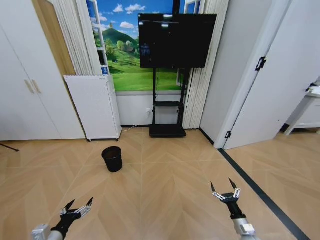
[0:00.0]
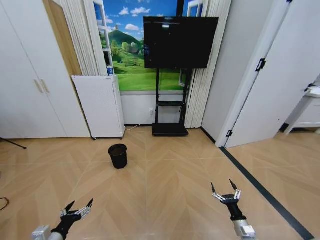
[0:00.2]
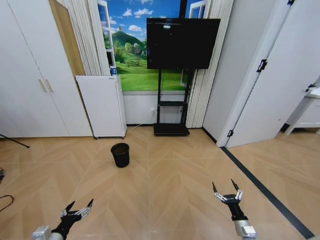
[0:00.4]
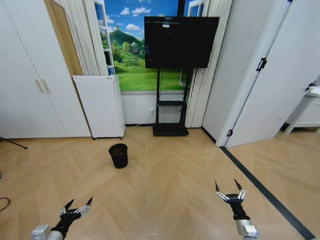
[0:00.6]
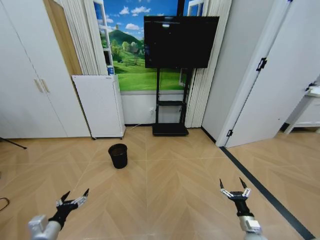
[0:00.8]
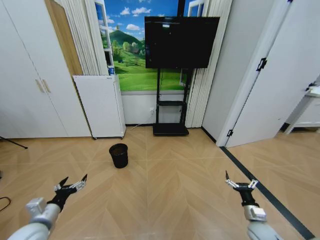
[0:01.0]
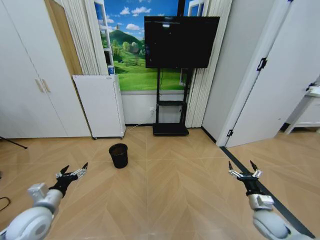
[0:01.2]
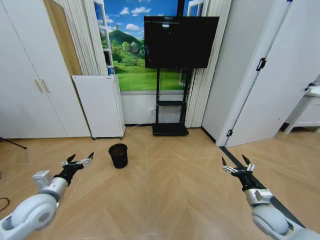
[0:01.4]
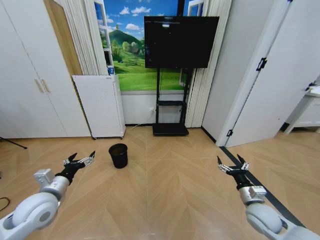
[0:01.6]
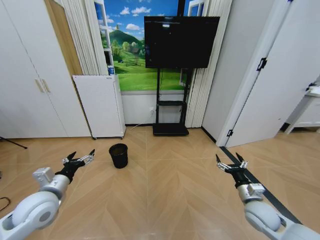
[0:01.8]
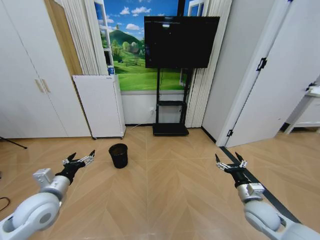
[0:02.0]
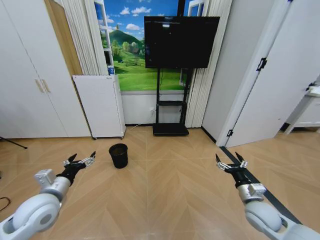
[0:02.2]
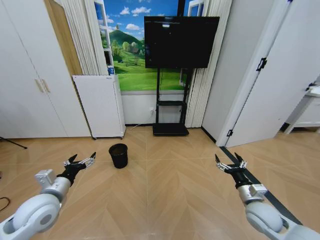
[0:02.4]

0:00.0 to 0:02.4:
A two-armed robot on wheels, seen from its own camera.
Task of the whole recording: Pick up the trash bin and place the garbage on the floor into it.
0:00.0 to 0:01.2: Both grippers move upward and forward, about 15 cm.
0:01.2 to 0:02.4: The right gripper is displaced upward and to the left by roughly 10 cm; the left gripper moves upward, about 5 cm.

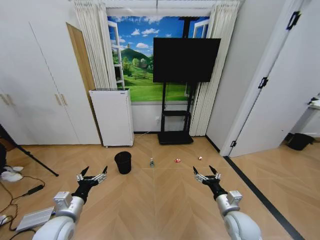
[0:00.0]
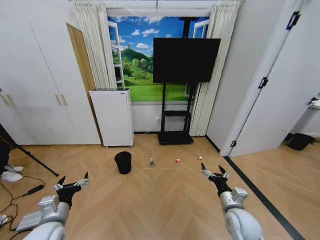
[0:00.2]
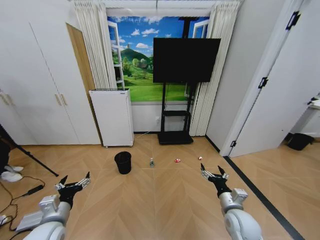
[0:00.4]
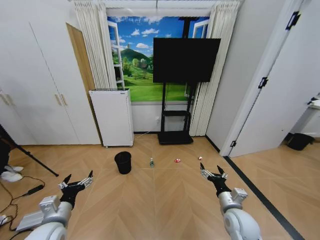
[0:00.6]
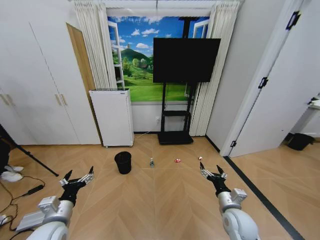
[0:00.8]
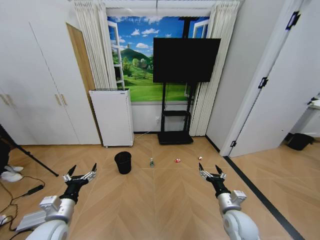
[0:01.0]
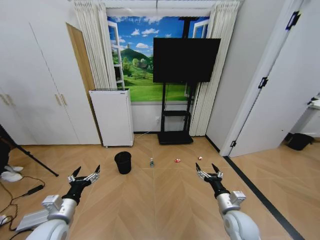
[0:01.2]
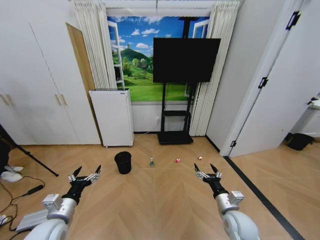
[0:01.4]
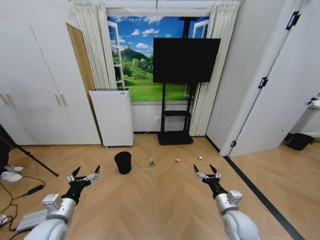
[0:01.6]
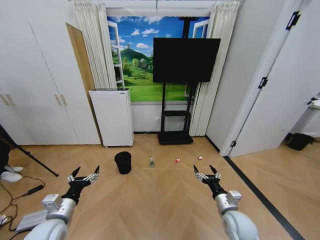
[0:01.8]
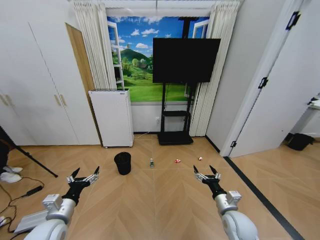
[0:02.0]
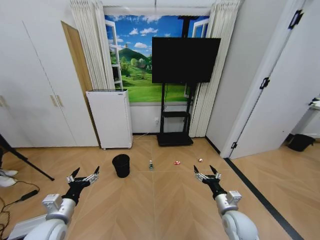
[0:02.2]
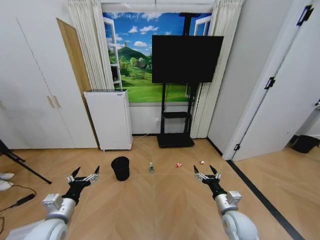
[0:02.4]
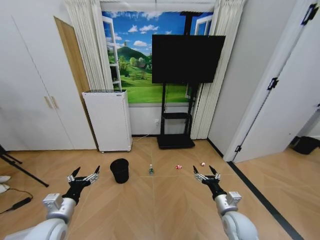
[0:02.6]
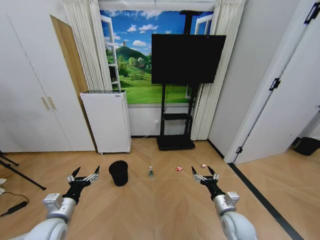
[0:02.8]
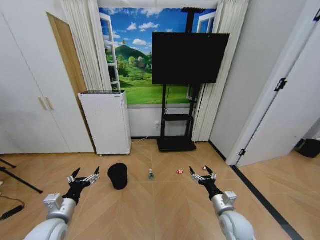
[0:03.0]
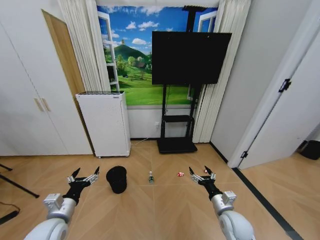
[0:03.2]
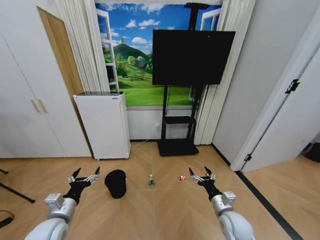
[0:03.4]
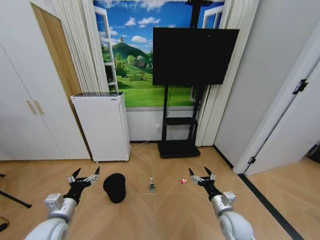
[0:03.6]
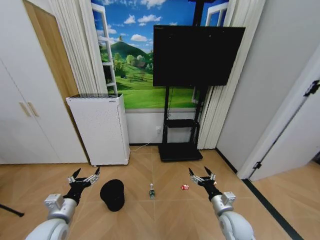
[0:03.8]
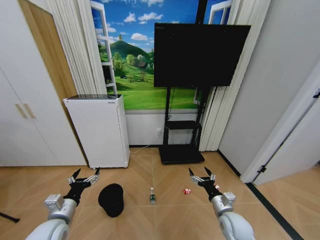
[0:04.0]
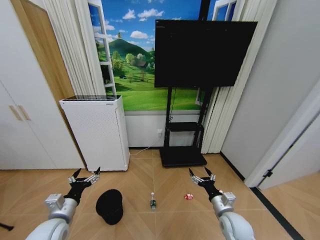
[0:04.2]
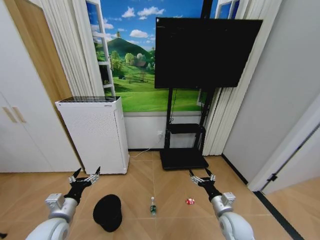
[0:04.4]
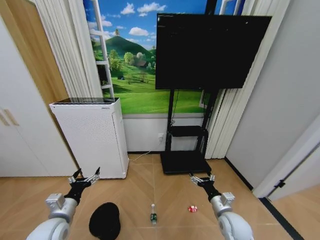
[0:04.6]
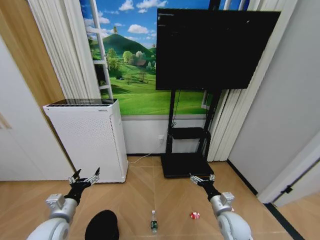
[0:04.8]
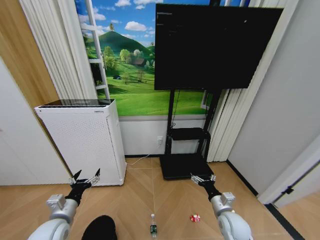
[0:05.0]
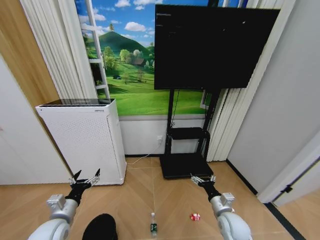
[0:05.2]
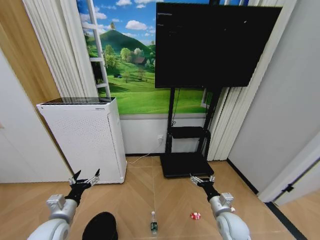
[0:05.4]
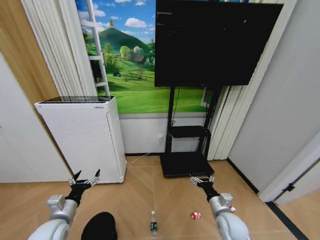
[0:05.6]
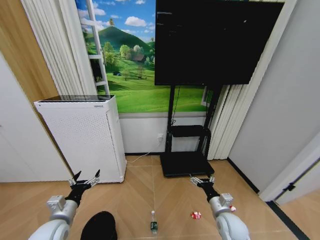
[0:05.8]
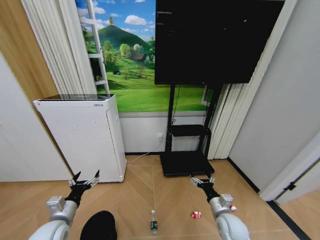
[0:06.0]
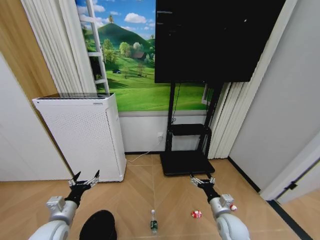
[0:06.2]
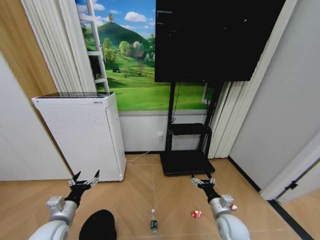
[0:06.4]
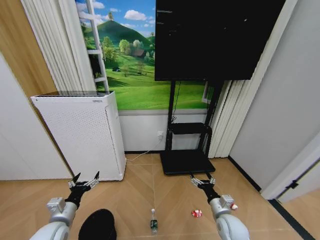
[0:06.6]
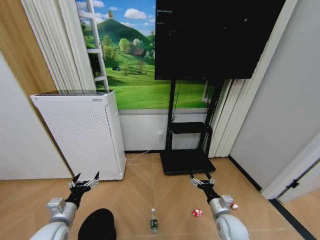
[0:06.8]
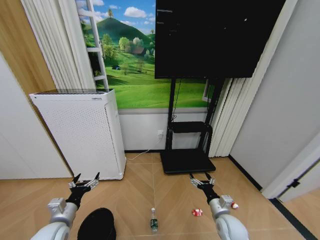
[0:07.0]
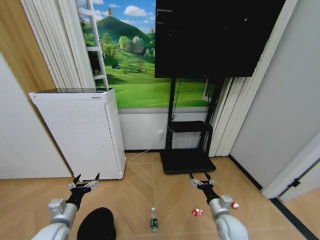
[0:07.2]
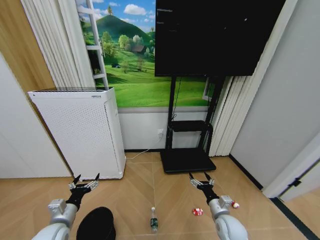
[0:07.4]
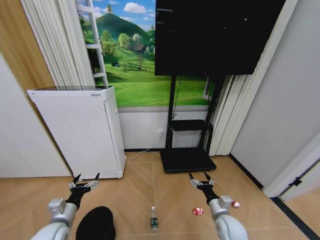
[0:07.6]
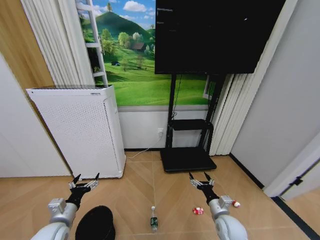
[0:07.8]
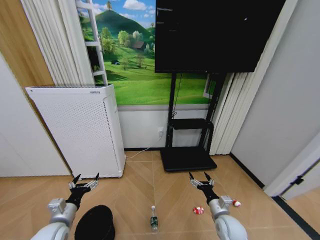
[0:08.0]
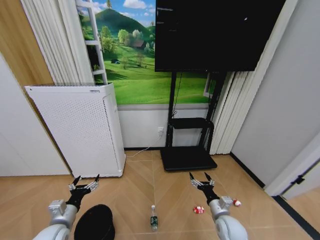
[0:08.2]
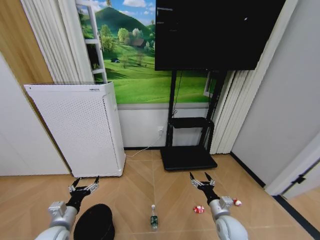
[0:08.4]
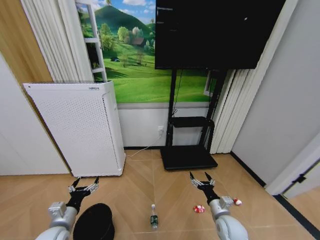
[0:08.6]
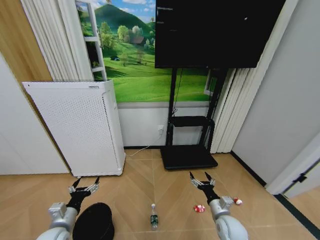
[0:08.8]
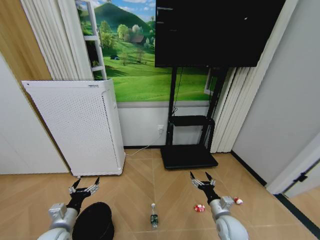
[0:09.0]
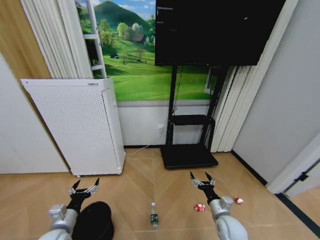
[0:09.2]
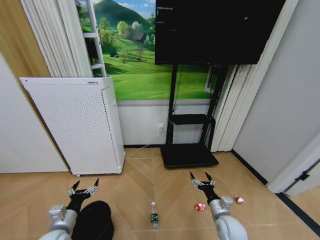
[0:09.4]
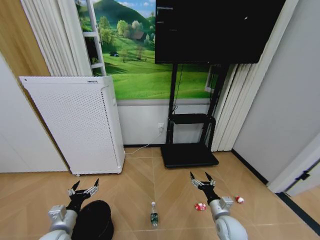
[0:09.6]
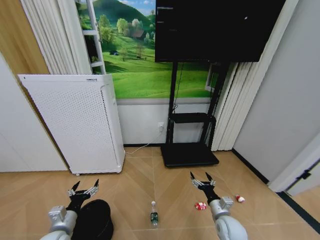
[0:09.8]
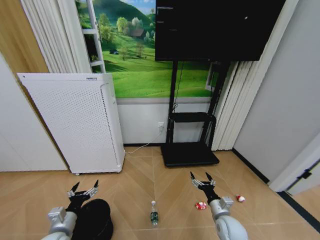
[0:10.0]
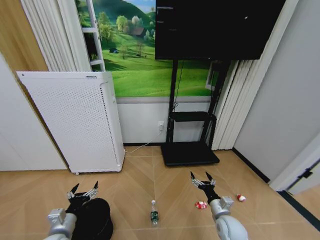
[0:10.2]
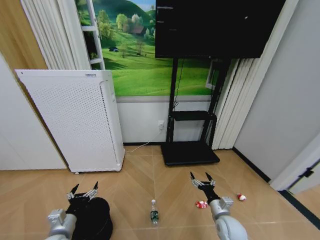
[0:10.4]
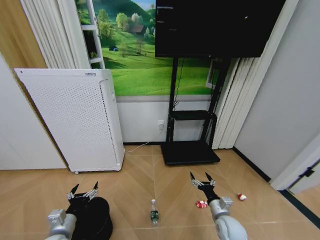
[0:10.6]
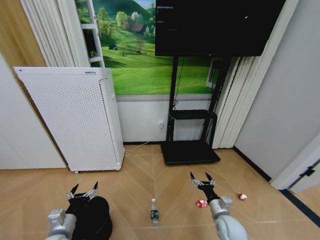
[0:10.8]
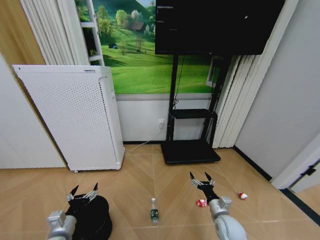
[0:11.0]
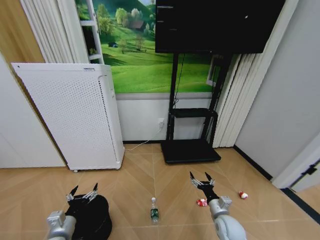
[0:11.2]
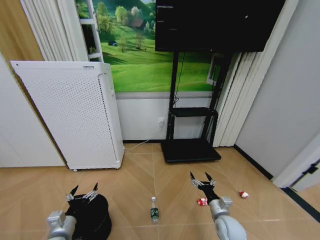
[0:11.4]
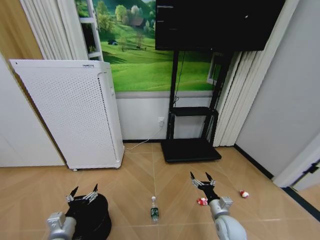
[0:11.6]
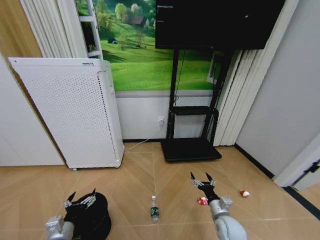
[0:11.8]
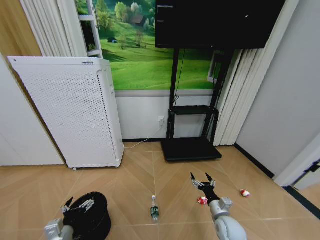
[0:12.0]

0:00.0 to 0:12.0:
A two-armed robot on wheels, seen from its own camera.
Task of the whole recording: Pick up the trash bin and place the garbage on the floor into it.
0:06.0 to 0:07.6: Neither gripper changes place.
0:07.6 to 0:10.4: There are only small adjustments of the grippers.
0:10.4 to 0:12.0: There are only small adjustments of the grippers.

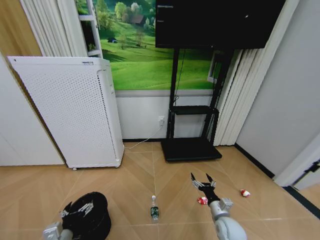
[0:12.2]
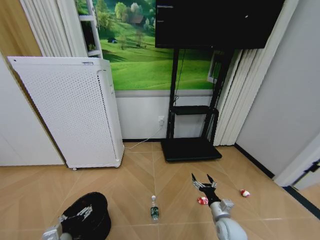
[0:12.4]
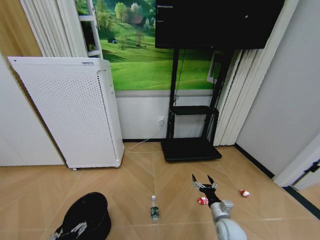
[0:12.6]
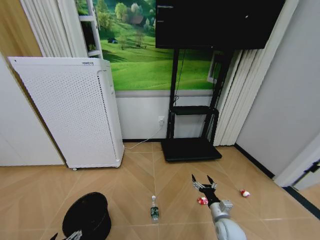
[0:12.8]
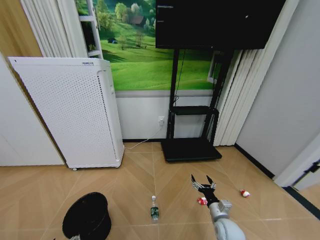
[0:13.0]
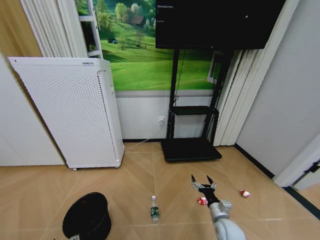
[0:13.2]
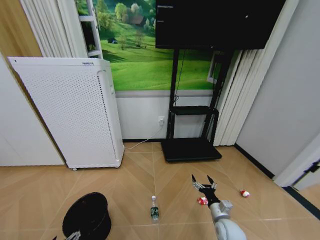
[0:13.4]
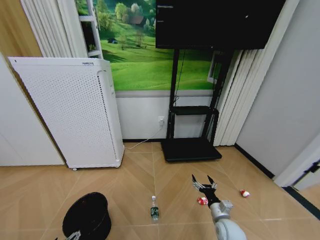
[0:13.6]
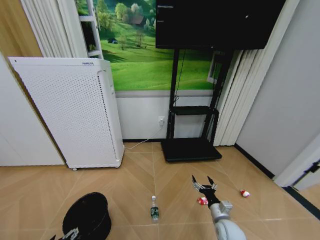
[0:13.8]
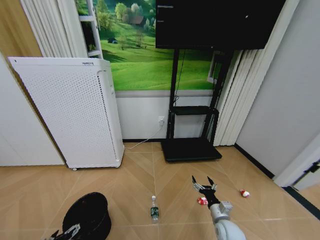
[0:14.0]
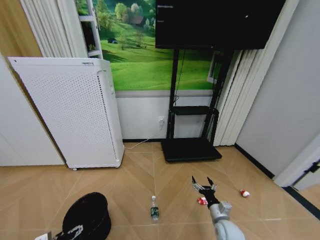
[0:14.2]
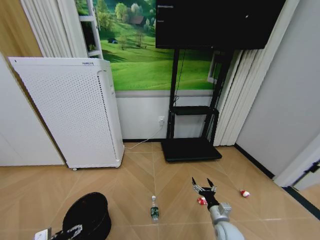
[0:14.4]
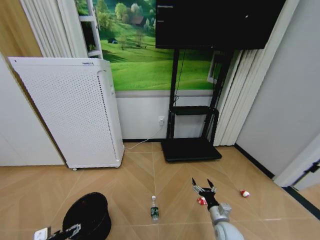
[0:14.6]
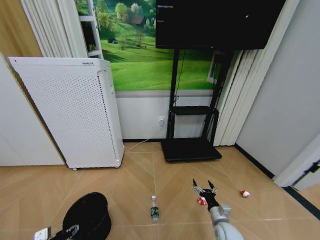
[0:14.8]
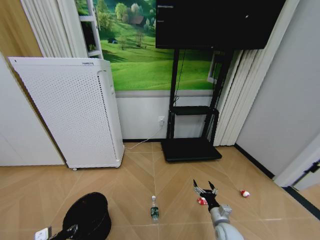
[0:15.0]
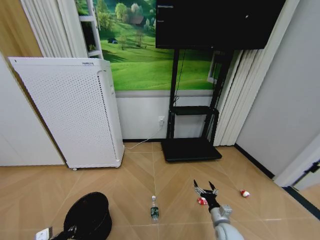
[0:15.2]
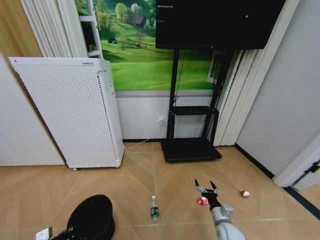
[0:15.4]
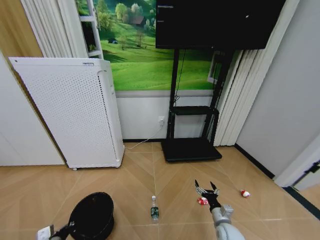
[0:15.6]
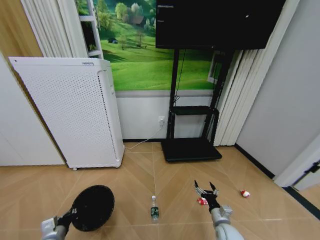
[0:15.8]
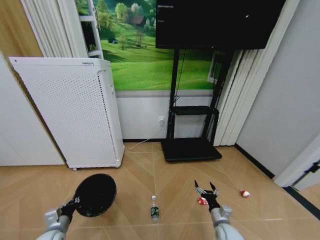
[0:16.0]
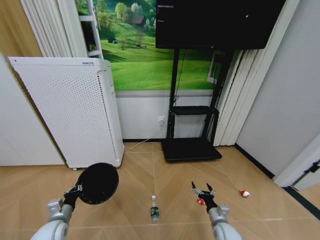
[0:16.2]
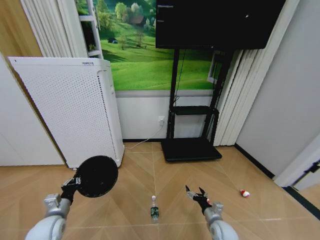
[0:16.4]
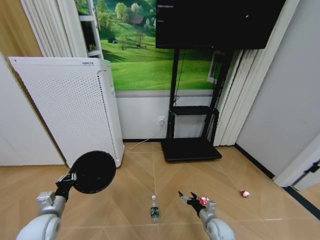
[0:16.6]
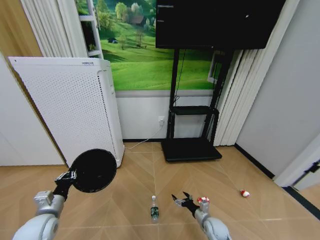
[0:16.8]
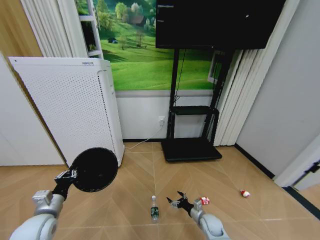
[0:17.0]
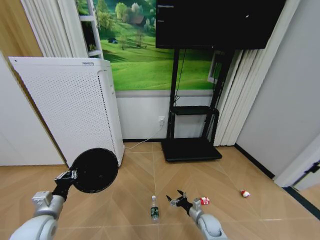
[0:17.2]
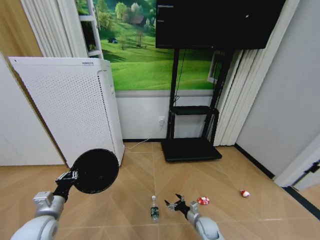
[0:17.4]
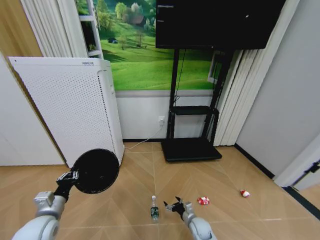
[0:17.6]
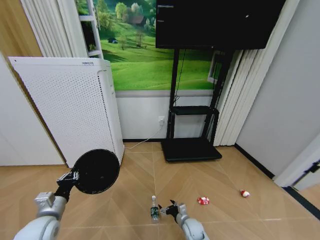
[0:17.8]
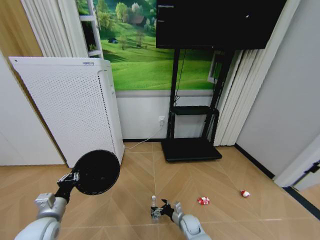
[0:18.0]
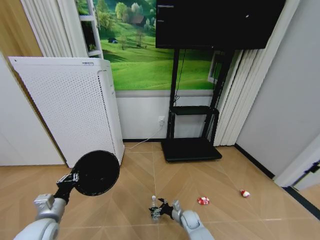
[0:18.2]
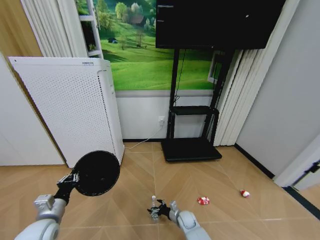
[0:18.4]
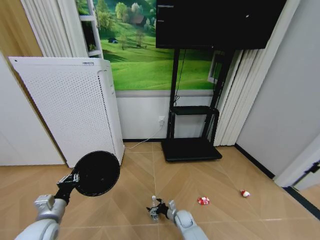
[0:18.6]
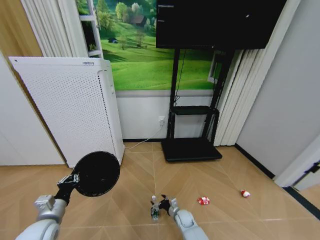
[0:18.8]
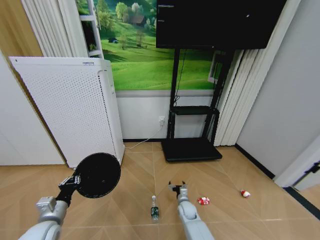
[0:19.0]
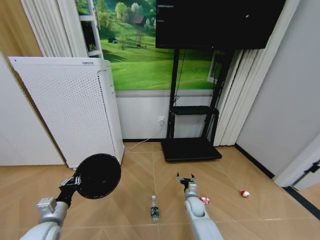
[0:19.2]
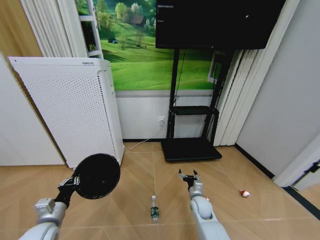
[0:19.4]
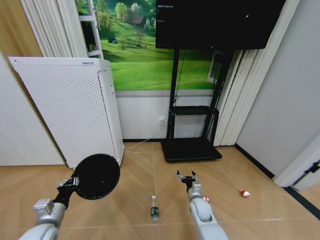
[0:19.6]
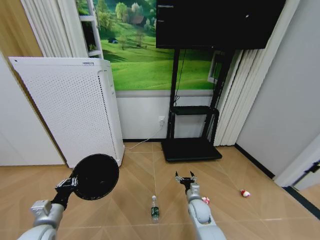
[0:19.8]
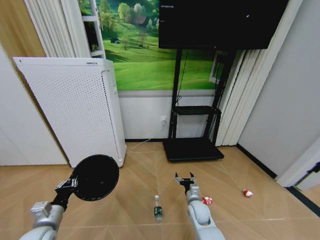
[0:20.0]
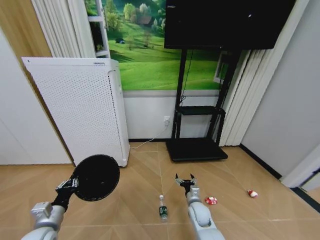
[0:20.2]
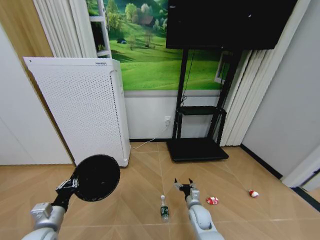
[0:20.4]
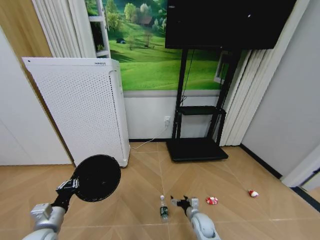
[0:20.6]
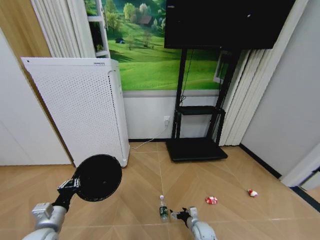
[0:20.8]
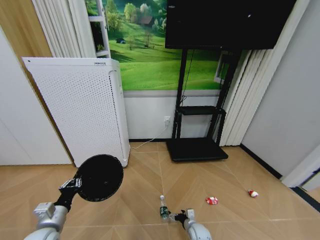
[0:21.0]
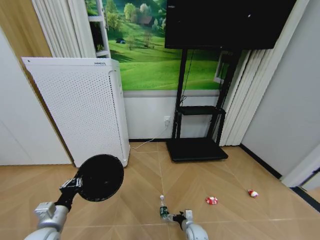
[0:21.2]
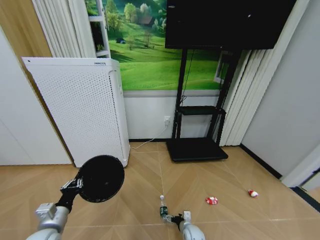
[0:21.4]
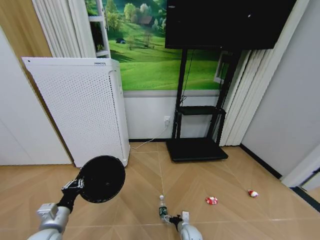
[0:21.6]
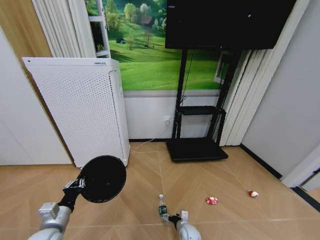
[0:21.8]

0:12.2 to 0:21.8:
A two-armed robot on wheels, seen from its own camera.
Task of the whole recording: Pick up the trash bin and place the garbage on the floor into it.
0:12.2 to 0:13.8: The left gripper travels downward by roughly 5 cm.
0:13.8 to 0:15.4: The left gripper shifts about 5 cm forward, and closes its fingers.
0:15.4 to 0:17.0: The right gripper heads downward and forward, covering roughly 10 cm, while the left gripper travels upward and forward by approximately 15 cm.
0:17.0 to 0:18.6: The right gripper goes some 15 cm to the left and downward.
0:18.6 to 0:20.2: The right gripper shifts some 15 cm upward.
0:20.2 to 0:21.8: The right gripper moves downward, roughly 15 cm.
